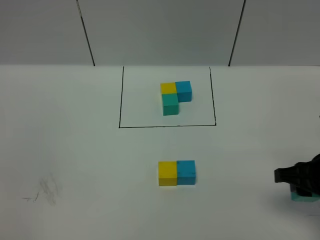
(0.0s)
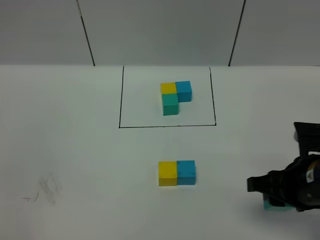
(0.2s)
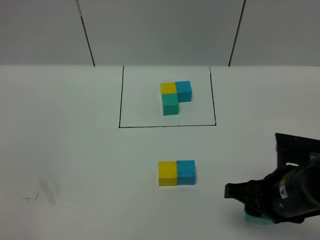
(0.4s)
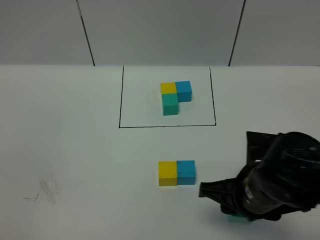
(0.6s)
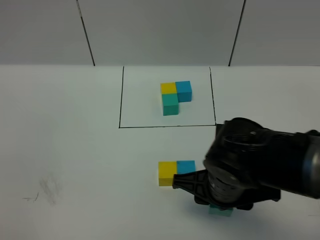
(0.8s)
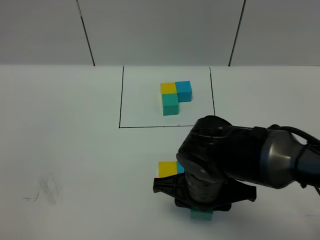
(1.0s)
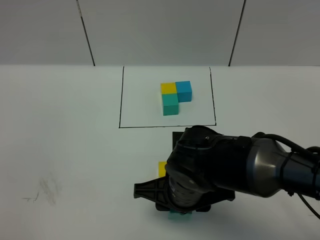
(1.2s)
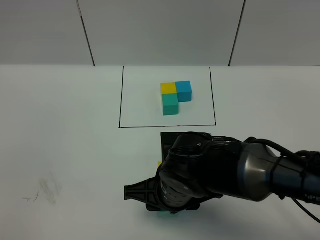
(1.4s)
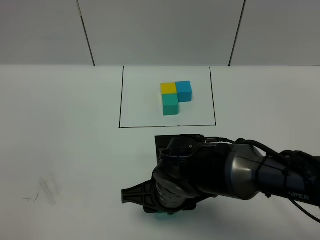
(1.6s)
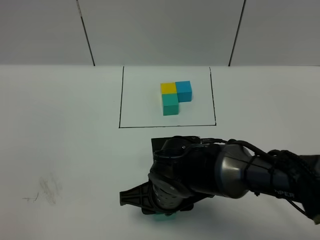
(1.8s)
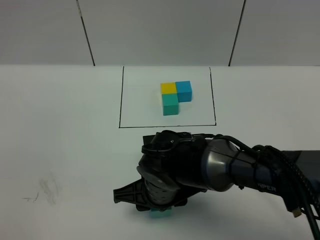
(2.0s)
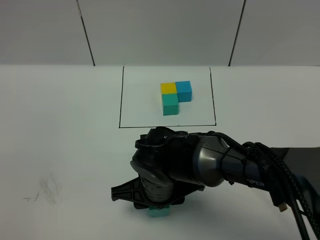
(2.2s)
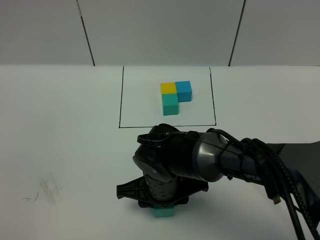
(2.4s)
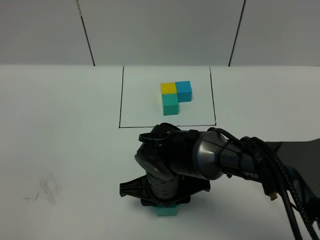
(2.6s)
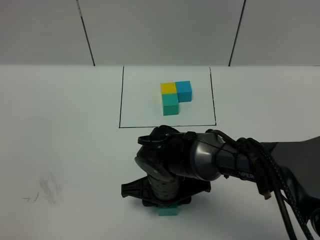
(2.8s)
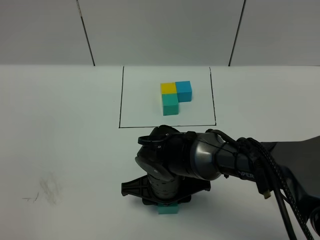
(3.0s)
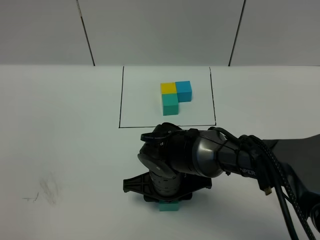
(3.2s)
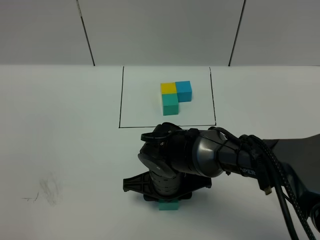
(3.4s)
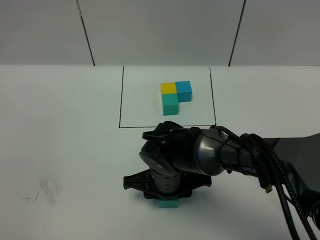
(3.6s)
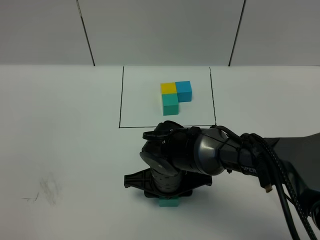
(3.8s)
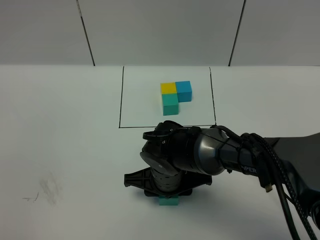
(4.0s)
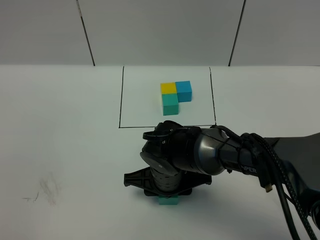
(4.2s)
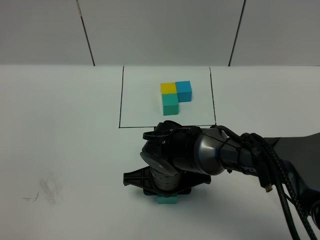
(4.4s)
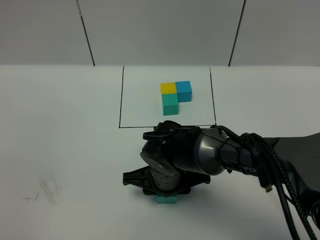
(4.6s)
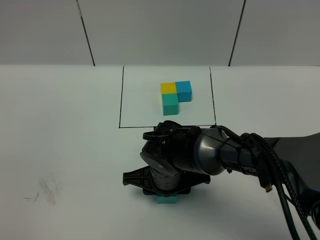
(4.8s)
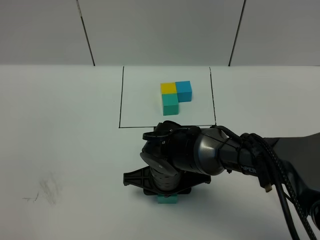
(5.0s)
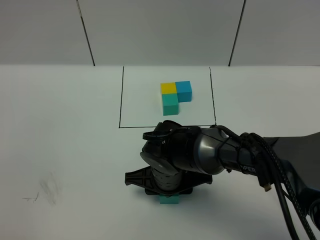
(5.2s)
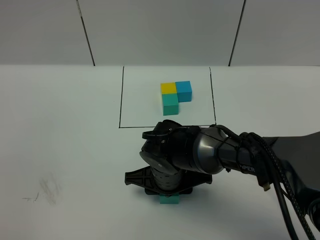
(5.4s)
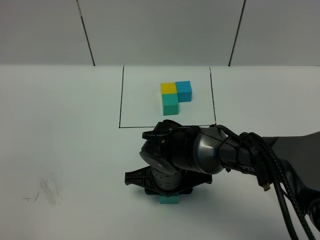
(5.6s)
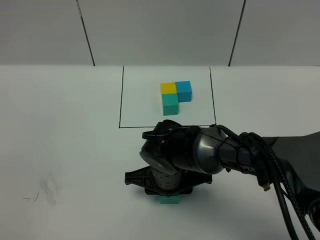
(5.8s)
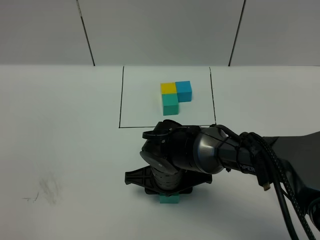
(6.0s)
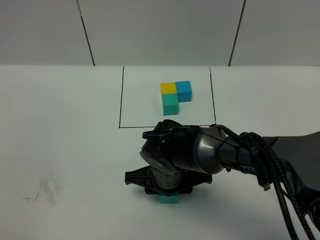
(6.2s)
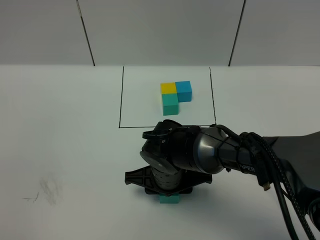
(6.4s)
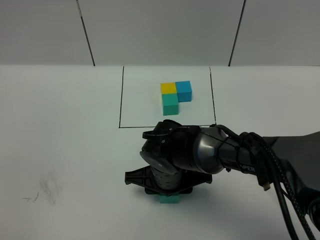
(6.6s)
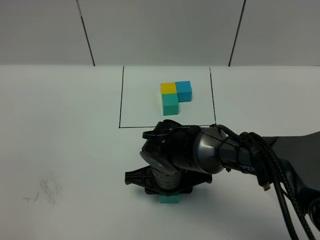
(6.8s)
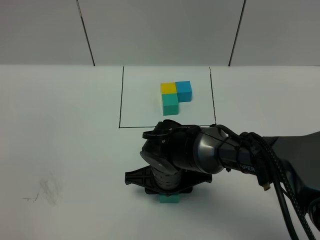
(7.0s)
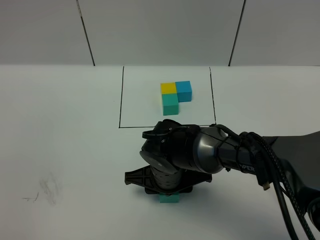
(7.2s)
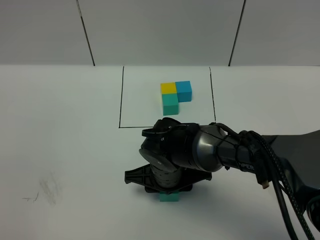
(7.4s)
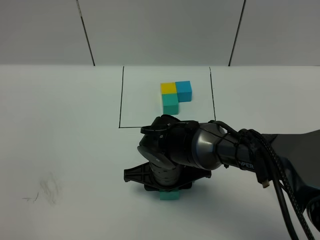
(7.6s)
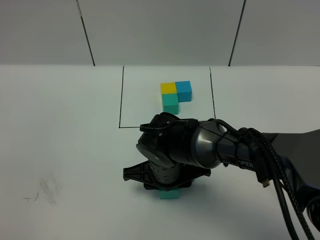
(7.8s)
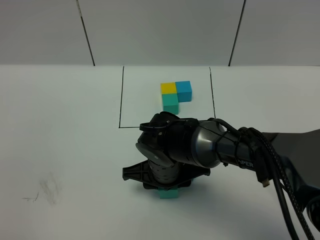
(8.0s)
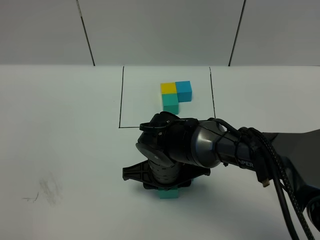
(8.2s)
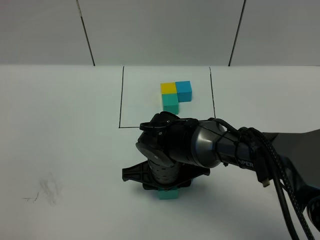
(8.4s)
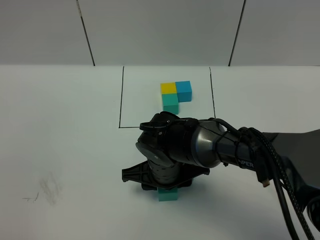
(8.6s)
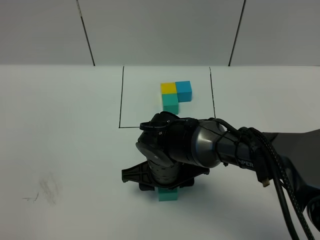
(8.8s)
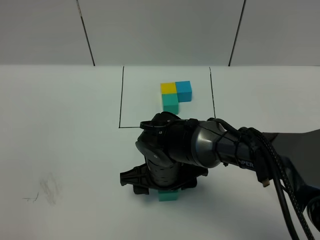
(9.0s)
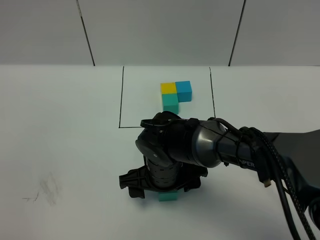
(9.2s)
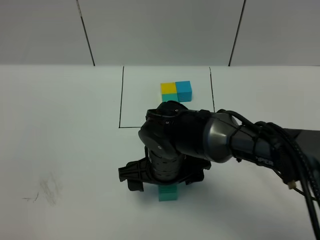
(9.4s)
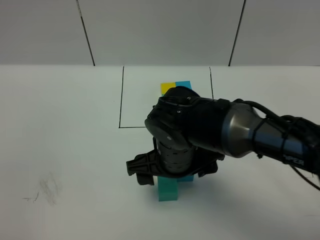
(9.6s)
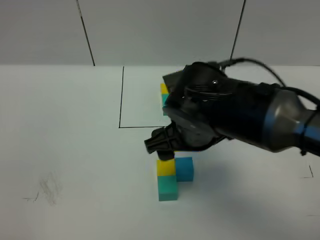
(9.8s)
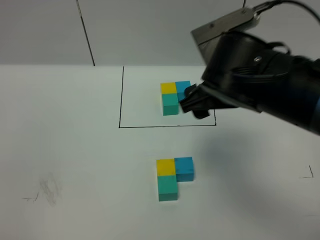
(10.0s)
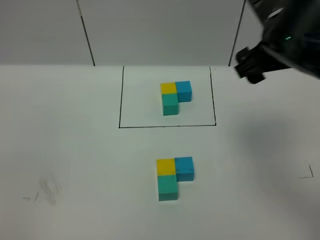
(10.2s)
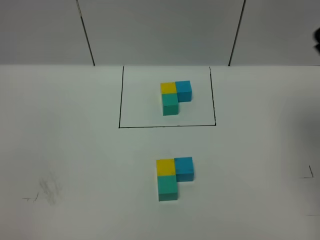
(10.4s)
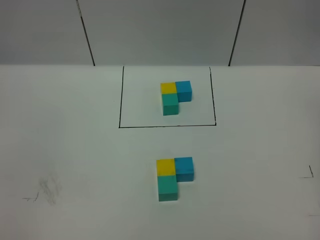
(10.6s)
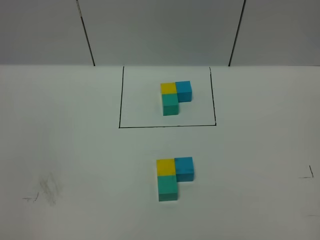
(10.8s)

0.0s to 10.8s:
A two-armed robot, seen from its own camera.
Task of the whole recording: According to the building block template in front, assemble the scattered blocks together.
Step, 0.0s to 9.2s: Put the green cube in the front of the yellow cube.
0.0s to 1.6s: The right gripper is displaced to the left by roughly 25 cm.
1.6s to 3.0s: There are only small adjustments of the grippers.
3.0s to 4.6s: Both grippers stay put.
4.6s to 7.8s: The two grippers keep their place.
7.8s to 9.2s: The right gripper opens up.
9.2s to 10.8s: The right gripper heads to the right and upward, covering roughly 50 cm.
